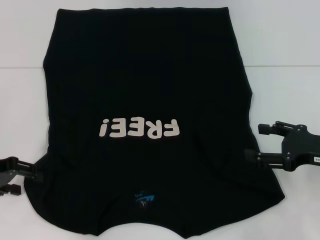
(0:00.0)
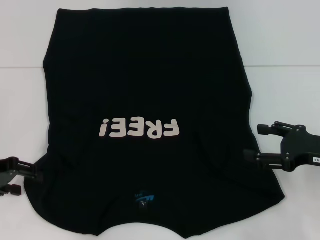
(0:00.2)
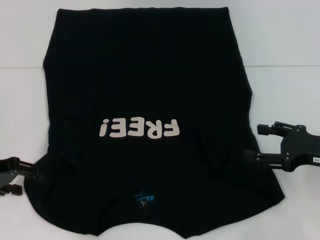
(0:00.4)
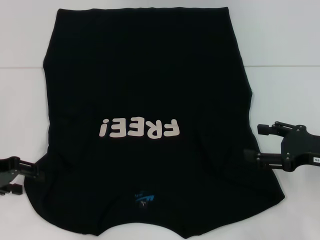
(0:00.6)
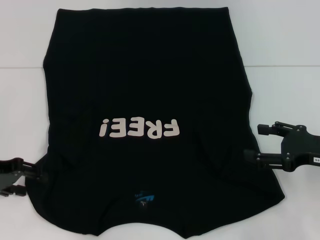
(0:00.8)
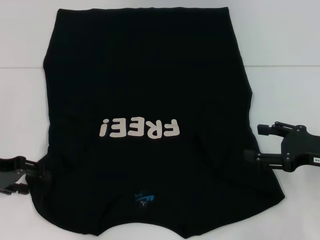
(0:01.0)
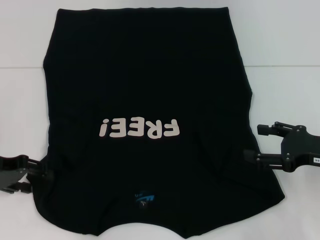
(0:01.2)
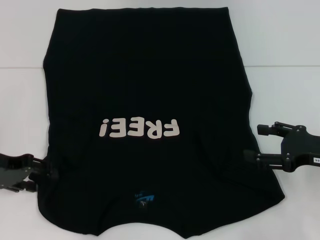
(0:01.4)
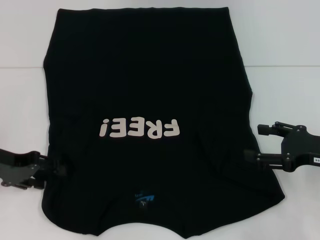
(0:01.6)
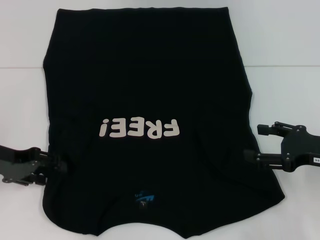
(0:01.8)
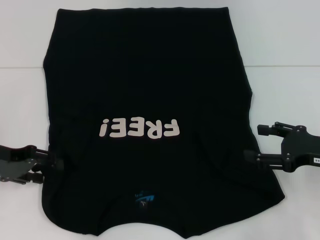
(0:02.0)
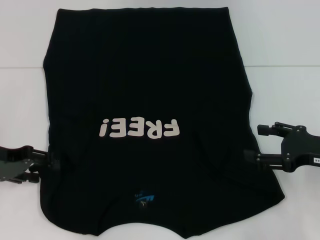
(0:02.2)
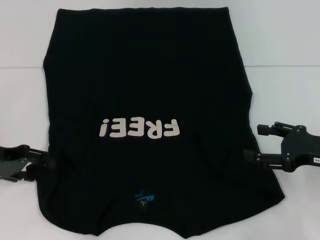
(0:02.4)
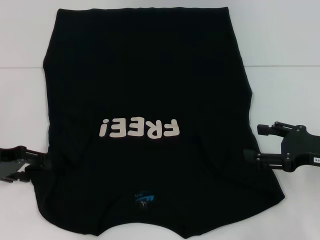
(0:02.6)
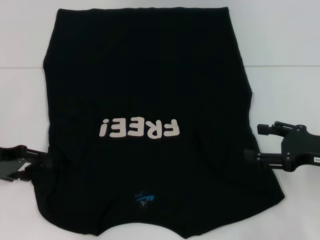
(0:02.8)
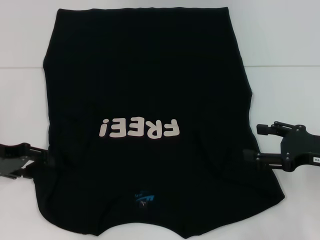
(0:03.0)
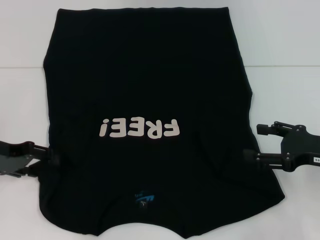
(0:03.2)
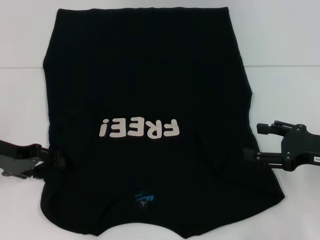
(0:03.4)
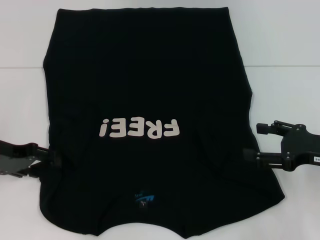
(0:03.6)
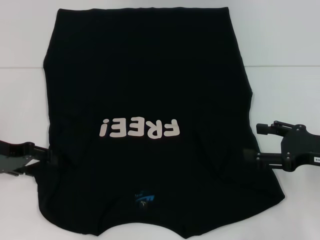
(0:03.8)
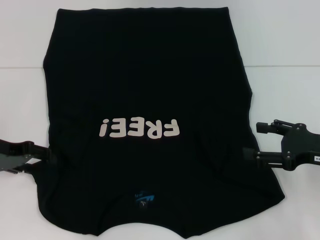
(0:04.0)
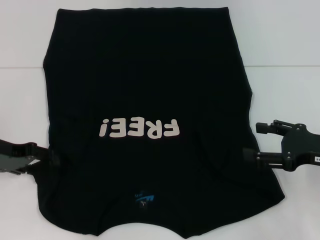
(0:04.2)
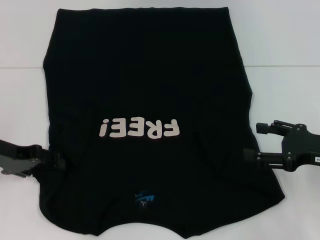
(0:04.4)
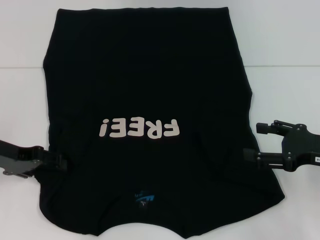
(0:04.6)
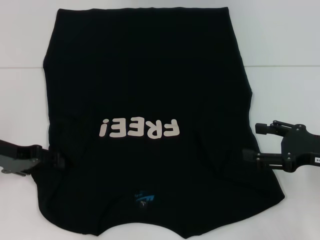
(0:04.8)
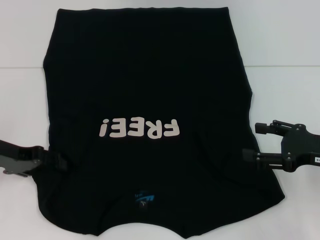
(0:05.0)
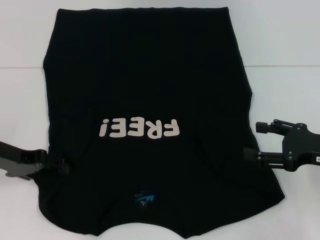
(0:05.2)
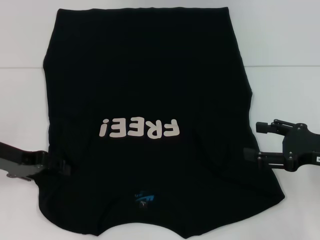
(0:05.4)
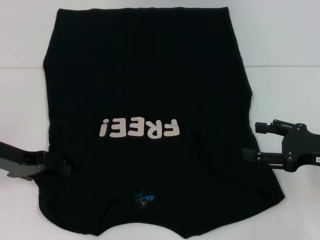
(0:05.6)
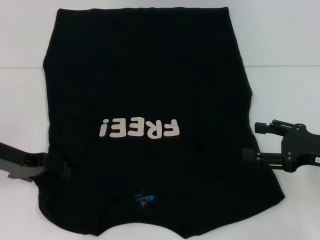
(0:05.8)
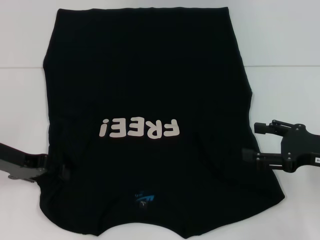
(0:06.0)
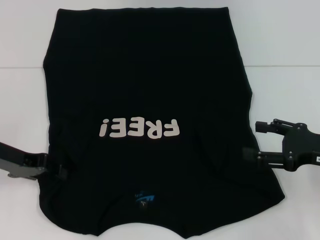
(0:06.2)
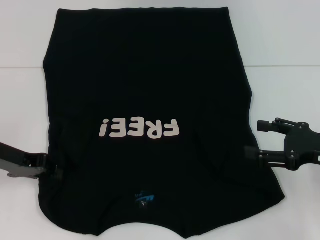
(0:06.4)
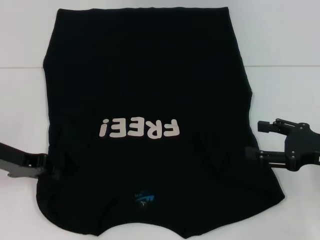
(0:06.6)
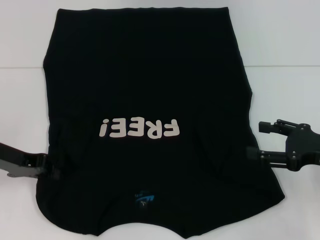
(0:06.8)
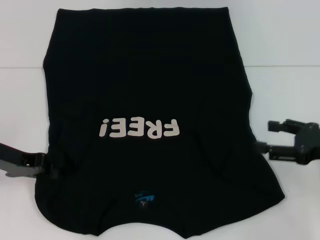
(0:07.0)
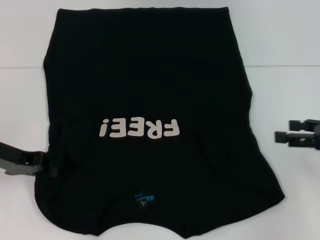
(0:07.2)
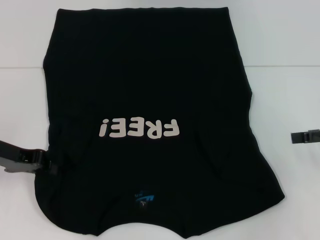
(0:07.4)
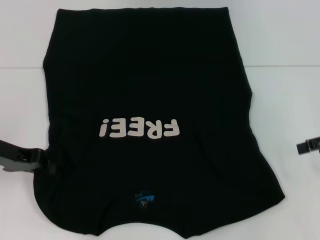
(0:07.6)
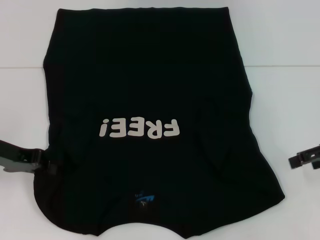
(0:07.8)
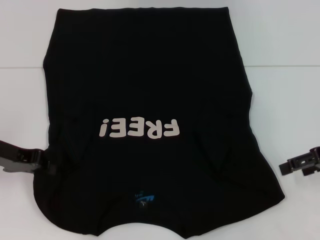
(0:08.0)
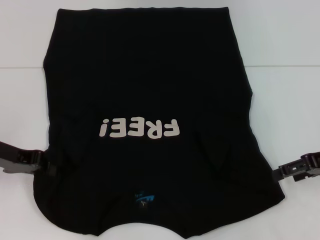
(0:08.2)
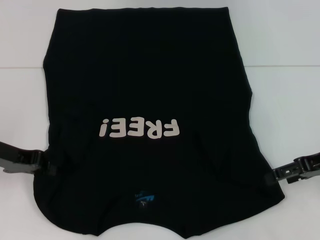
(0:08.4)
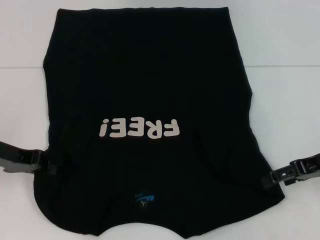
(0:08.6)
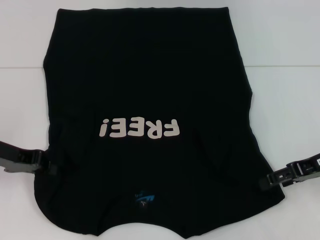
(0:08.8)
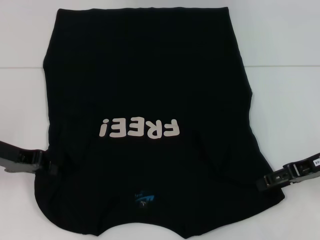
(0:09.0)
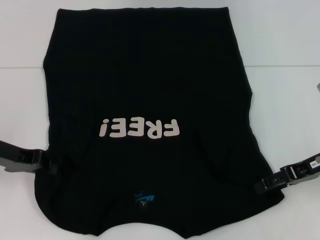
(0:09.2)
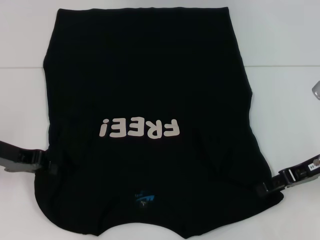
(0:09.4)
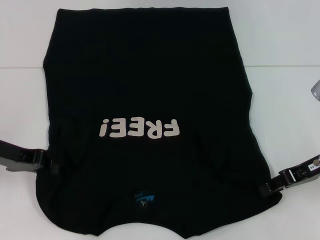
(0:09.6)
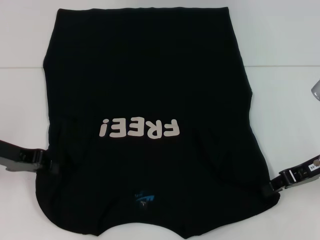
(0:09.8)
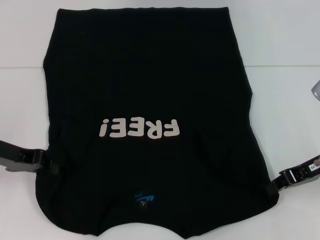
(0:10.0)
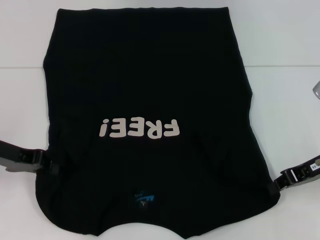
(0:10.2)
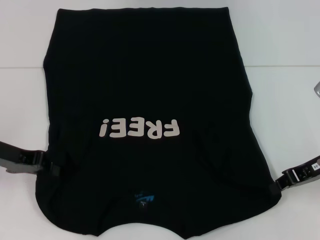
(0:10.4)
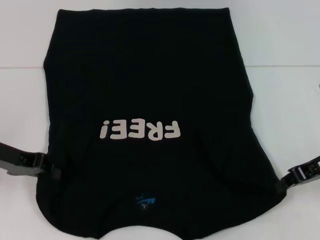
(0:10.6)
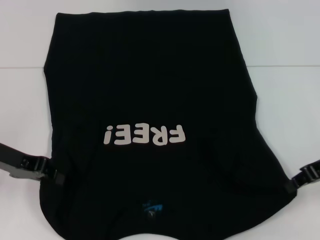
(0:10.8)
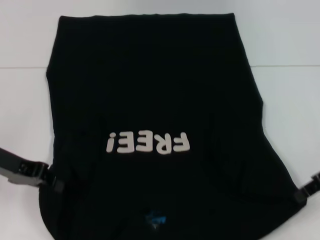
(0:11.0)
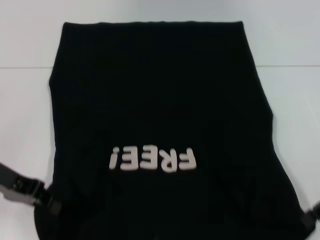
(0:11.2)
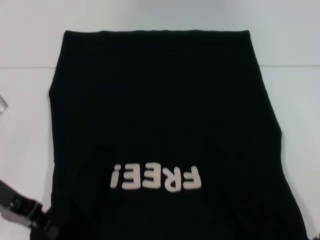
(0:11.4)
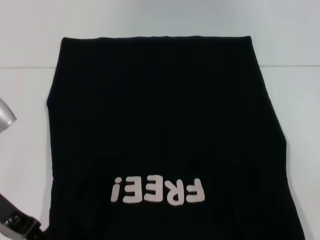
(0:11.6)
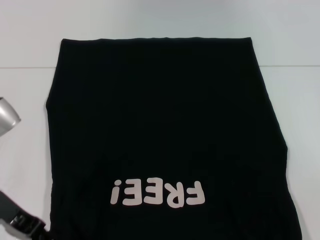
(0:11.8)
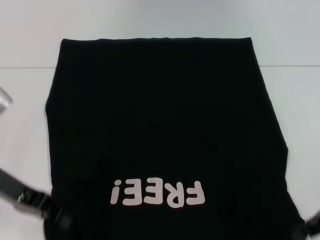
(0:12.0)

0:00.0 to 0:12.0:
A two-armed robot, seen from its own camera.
Step, 0:00.0 to 0:05.6: Grab the bottom left corner with your left hand.
Step, 0:05.8 to 0:11.0: Grab the bottom right corner with your right hand.
0:00.0 to 0:06.0: The grippers move only a little.
0:06.0 to 0:07.6: The left gripper closes. Meanwhile the right gripper is displaced upward, to the right and forward by approximately 10 cm.
0:07.6 to 0:09.0: The right gripper heads to the left, covering about 5 cm.
0:09.0 to 0:10.4: The right gripper closes up.
0:10.4 to 0:12.0: The right gripper moves approximately 5 cm.

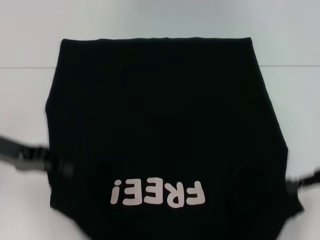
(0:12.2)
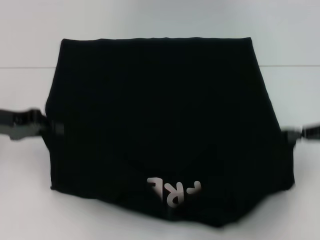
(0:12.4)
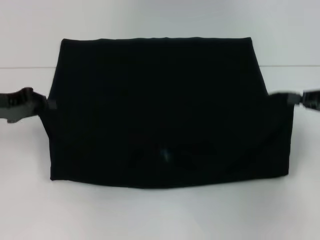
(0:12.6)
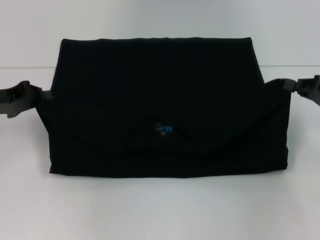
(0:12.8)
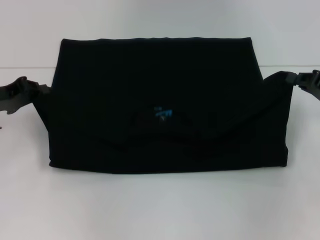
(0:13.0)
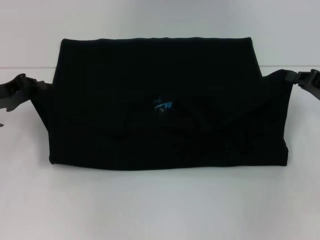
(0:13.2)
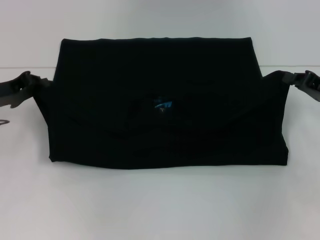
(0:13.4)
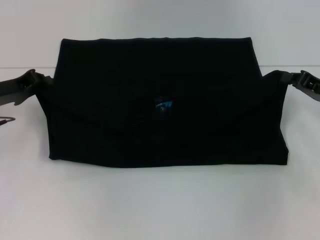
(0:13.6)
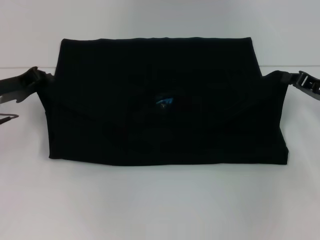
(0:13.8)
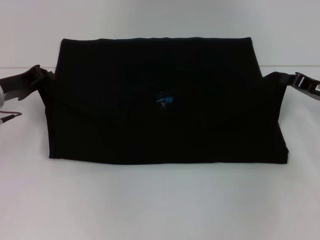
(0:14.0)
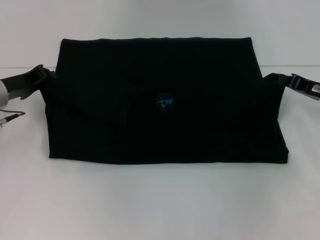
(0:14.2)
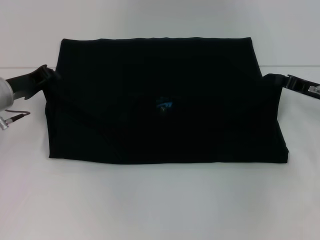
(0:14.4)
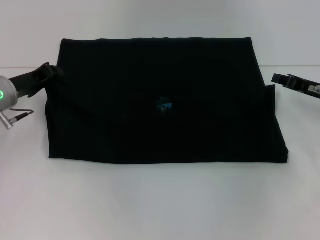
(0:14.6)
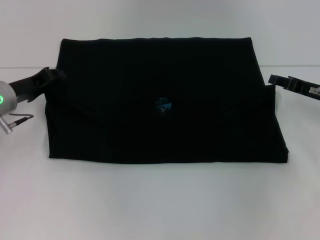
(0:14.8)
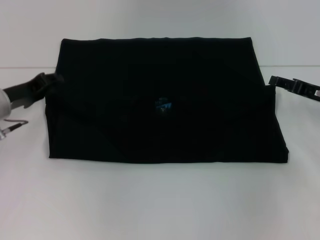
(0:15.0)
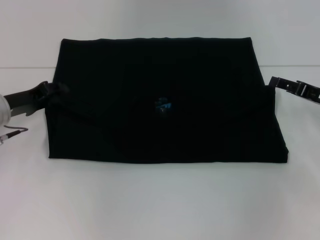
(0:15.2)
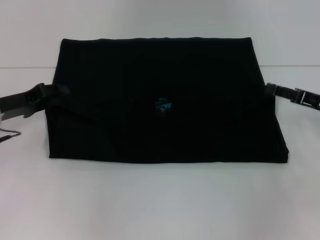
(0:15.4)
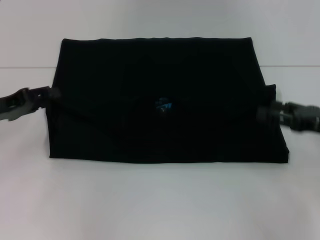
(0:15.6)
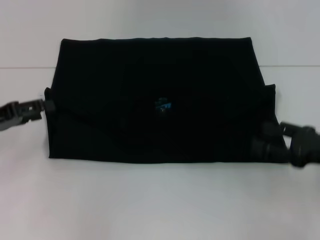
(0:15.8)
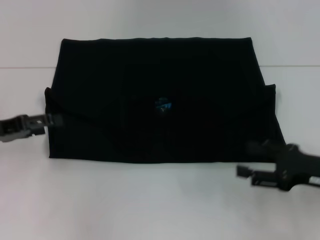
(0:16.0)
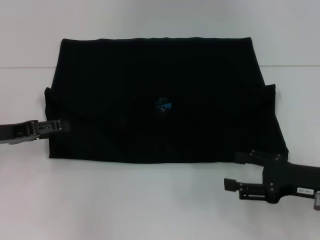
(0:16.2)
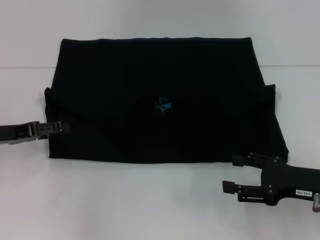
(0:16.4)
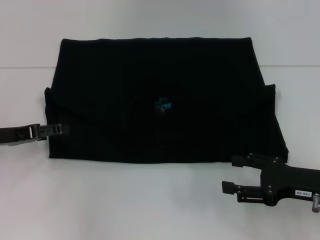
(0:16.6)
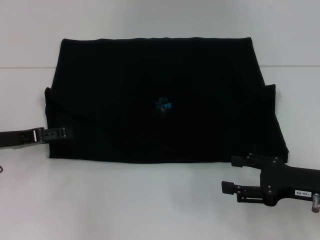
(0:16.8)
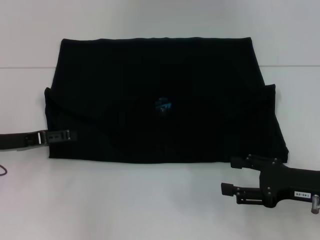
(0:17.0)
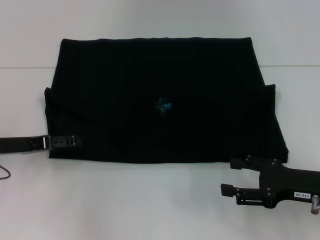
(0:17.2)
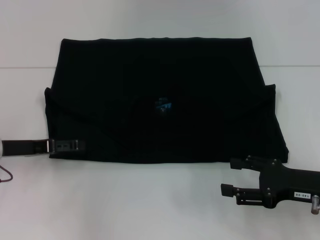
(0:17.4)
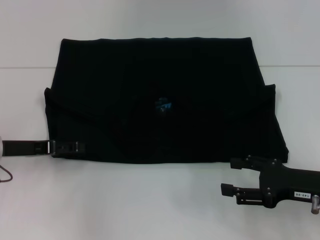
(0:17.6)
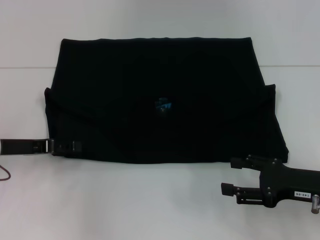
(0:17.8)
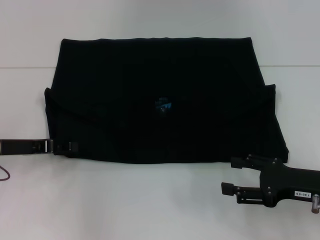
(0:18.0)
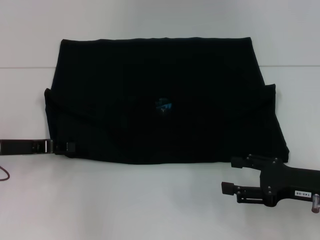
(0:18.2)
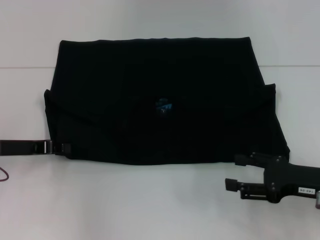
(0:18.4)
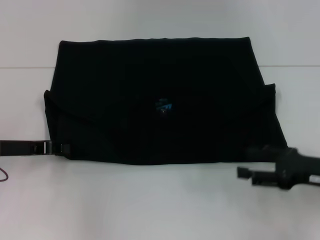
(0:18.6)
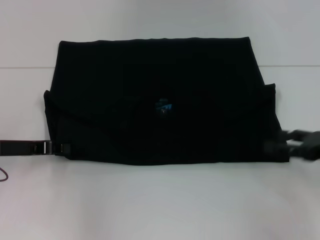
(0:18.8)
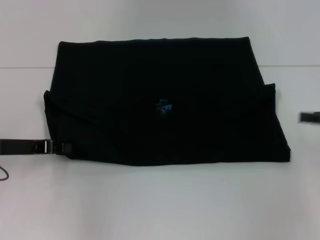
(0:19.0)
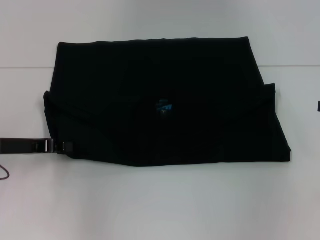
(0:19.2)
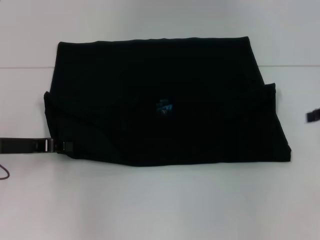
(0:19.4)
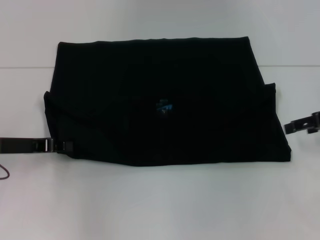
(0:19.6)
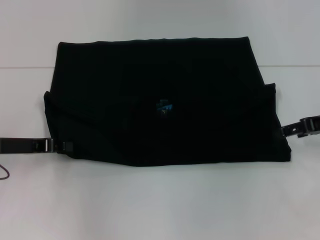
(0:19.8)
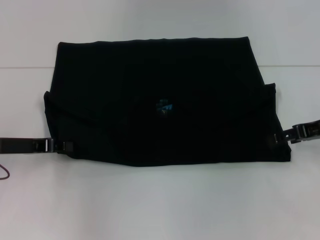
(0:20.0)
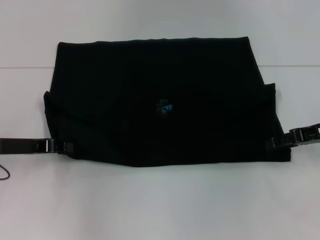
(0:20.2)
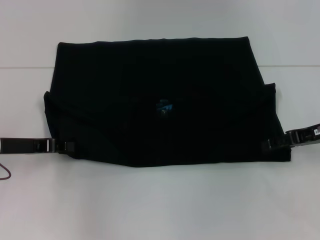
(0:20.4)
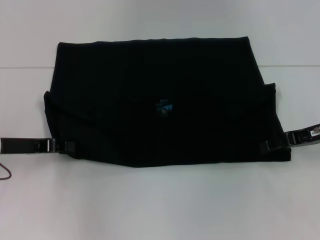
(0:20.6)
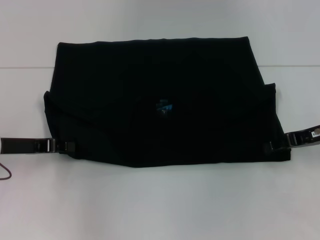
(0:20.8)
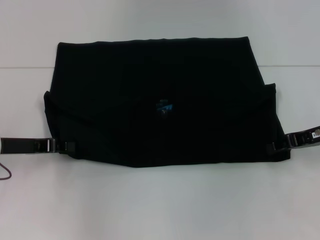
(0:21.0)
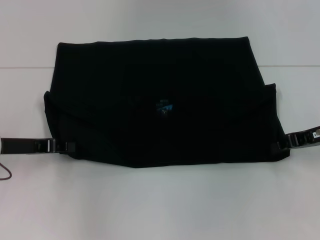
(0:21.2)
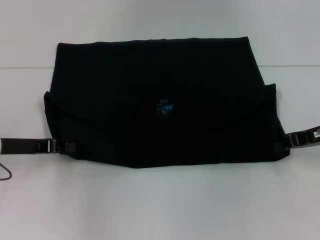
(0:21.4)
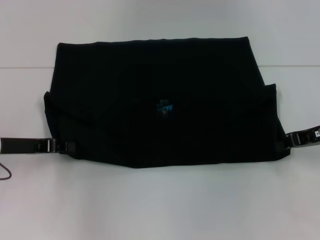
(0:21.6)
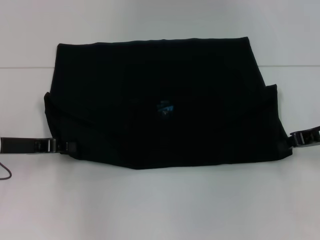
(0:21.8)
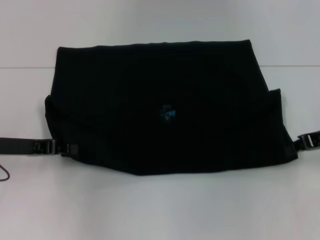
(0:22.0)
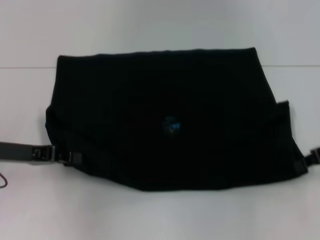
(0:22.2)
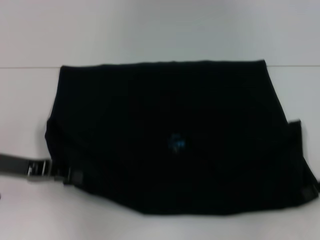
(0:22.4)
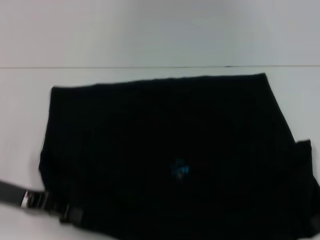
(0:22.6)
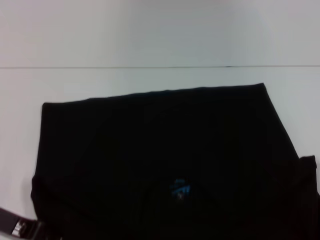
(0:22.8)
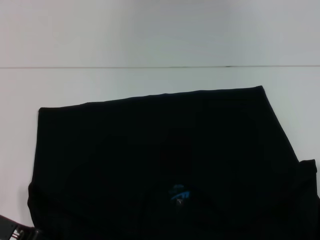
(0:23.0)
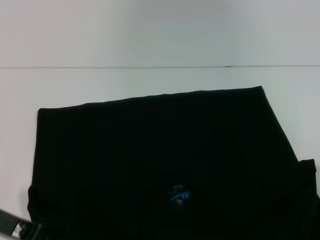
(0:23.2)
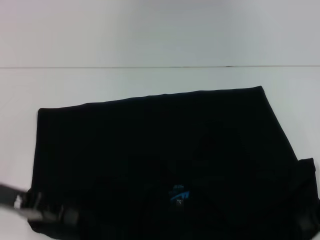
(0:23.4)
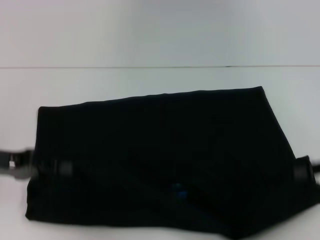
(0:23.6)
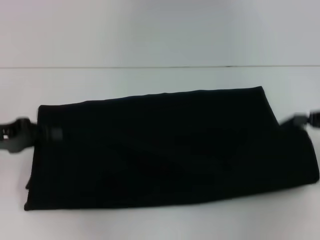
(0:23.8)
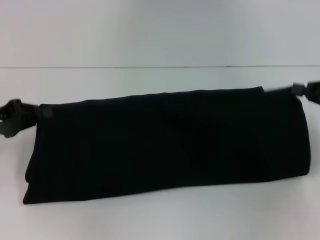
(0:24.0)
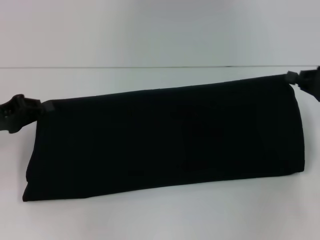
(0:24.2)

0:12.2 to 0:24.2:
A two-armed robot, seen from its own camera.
Step, 0:12.2 to 0:15.6: Fold the clothes with your left hand.
Step, 0:12.2 to 0:15.6: Fold the clothes with your right hand.
Step, 0:15.8 to 0:23.0: Pull the clothes with your left hand.
Step, 0:15.8 to 0:23.0: Pull the clothes with your right hand.
0:12.2 to 0:13.8: Both grippers travel together forward, some 5 cm.
0:13.8 to 0:15.2: The left gripper opens up; the right gripper opens up.
0:15.2 to 0:16.6: The left gripper opens; the right gripper moves backward, roughly 10 cm.
0:16.6 to 0:18.2: The left gripper closes up.
0:18.2 to 0:19.8: The left gripper closes up. The right gripper travels forward and upward by roughly 15 cm.
0:19.8 to 0:21.2: The right gripper closes up.
0:21.2 to 0:22.6: The left gripper shifts by approximately 5 cm. Meanwhile the right gripper shifts approximately 5 cm backward.
0:22.6 to 0:24.2: The left gripper ends up some 5 cm from where it was. Meanwhile the right gripper is displaced forward by approximately 5 cm.
